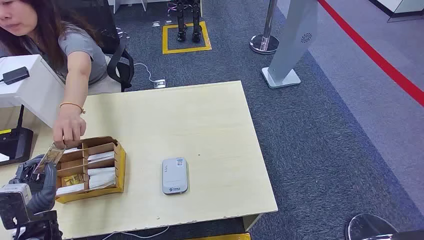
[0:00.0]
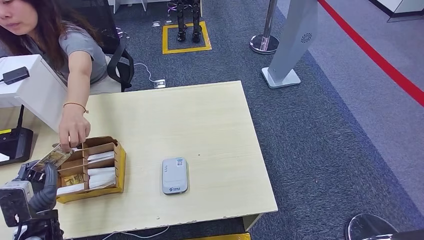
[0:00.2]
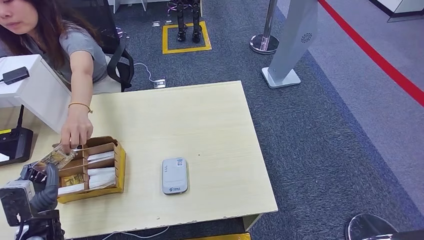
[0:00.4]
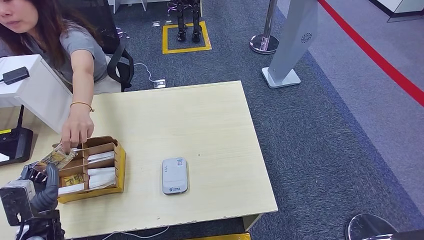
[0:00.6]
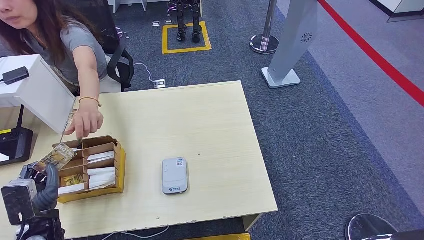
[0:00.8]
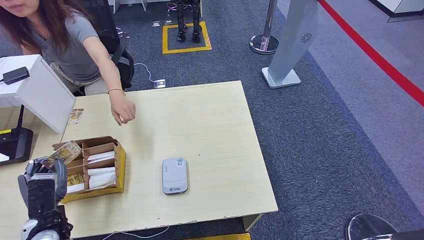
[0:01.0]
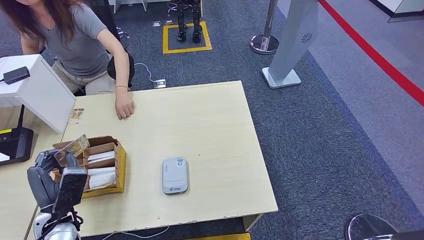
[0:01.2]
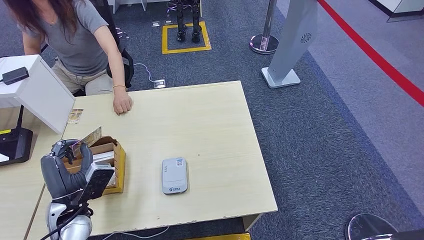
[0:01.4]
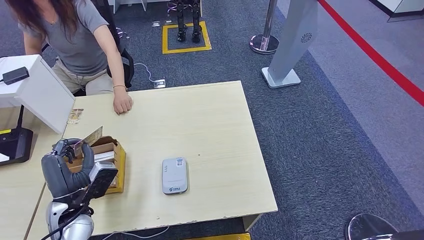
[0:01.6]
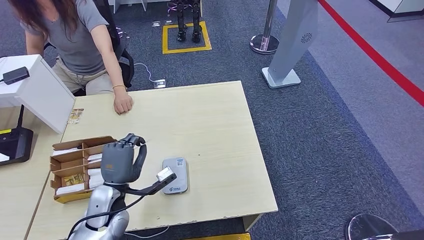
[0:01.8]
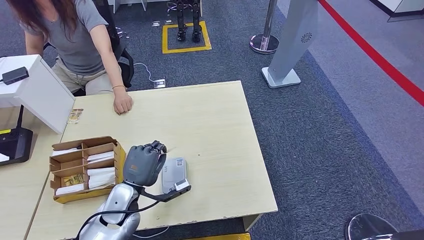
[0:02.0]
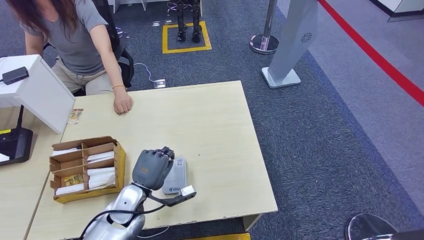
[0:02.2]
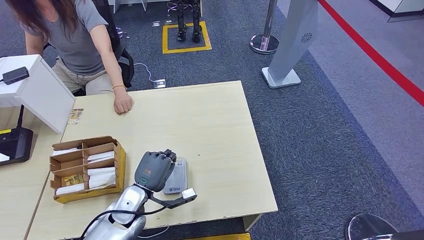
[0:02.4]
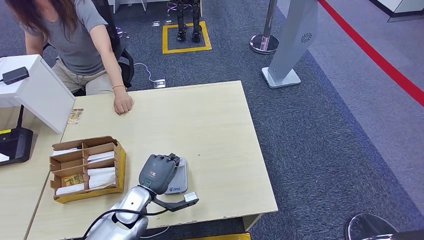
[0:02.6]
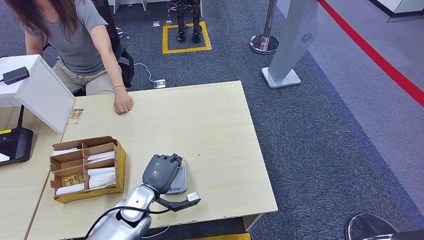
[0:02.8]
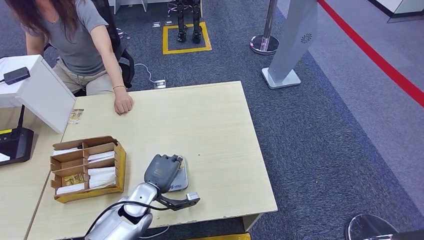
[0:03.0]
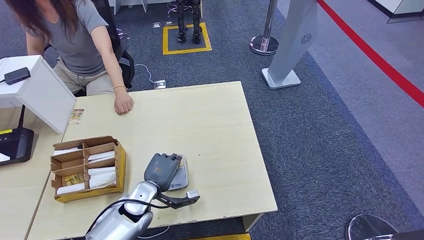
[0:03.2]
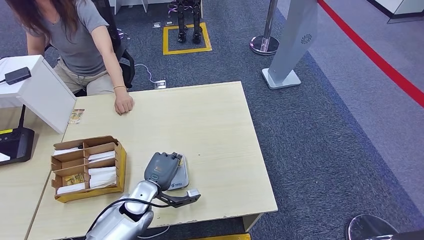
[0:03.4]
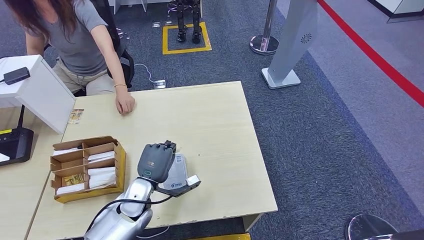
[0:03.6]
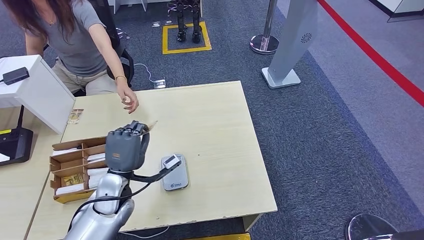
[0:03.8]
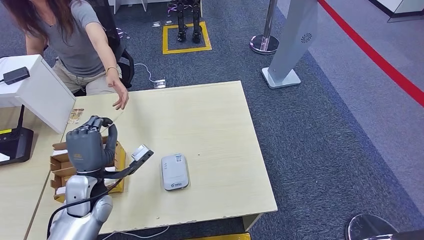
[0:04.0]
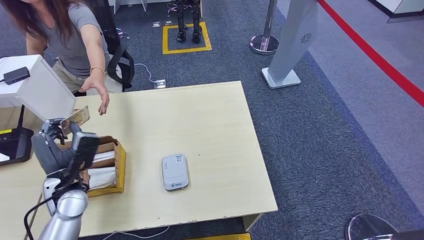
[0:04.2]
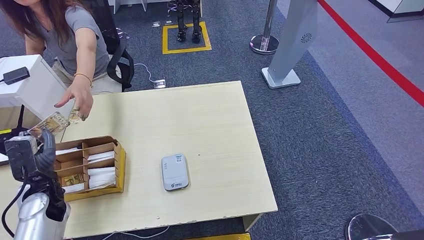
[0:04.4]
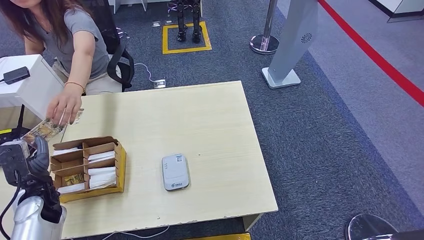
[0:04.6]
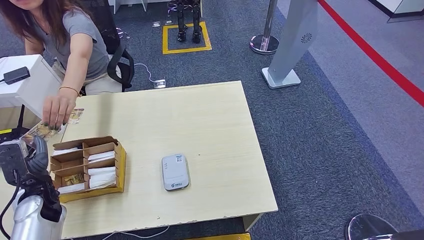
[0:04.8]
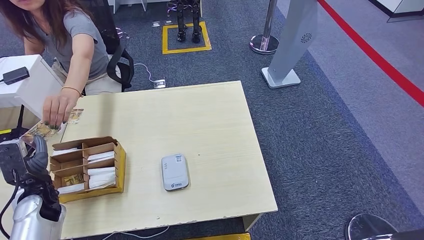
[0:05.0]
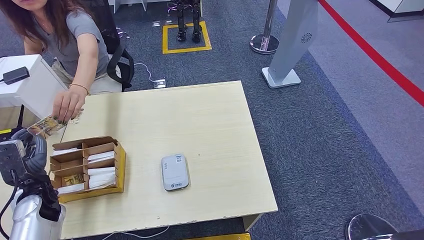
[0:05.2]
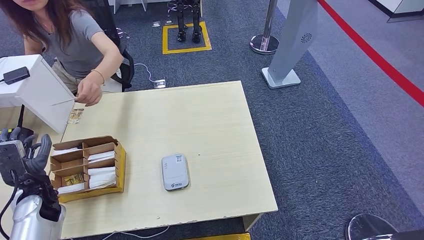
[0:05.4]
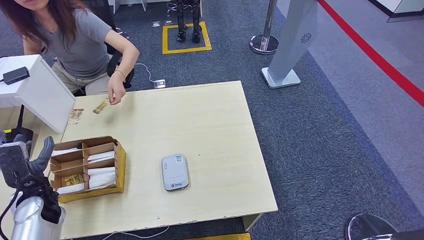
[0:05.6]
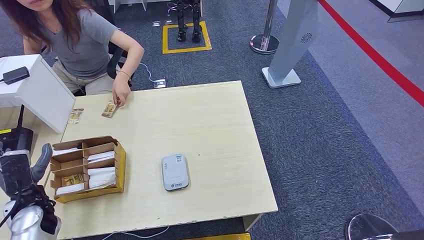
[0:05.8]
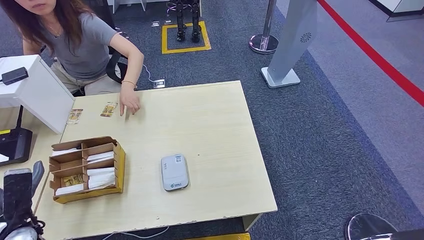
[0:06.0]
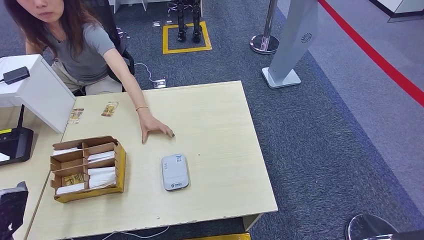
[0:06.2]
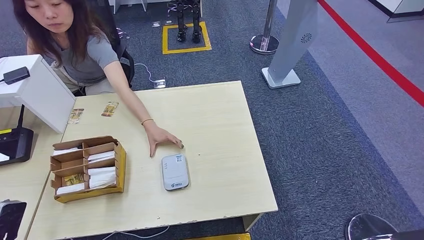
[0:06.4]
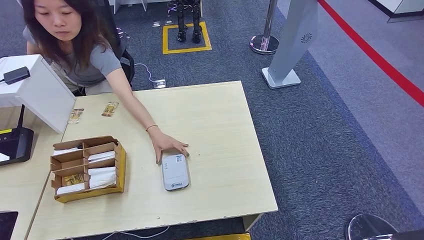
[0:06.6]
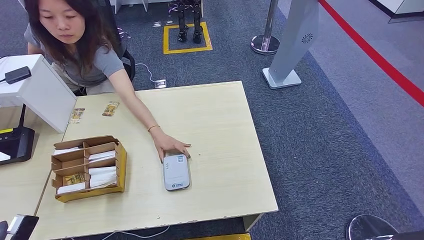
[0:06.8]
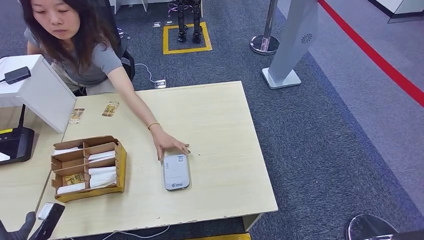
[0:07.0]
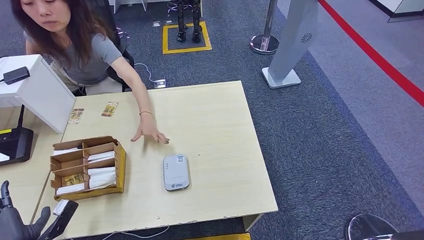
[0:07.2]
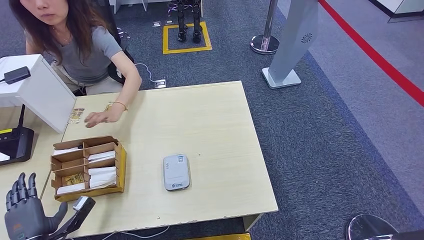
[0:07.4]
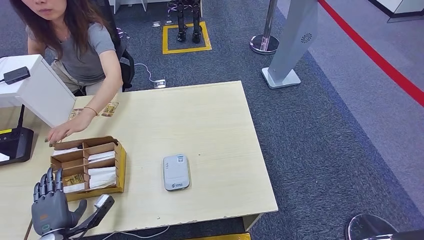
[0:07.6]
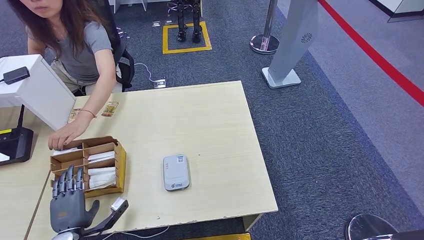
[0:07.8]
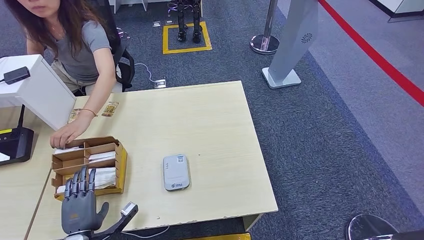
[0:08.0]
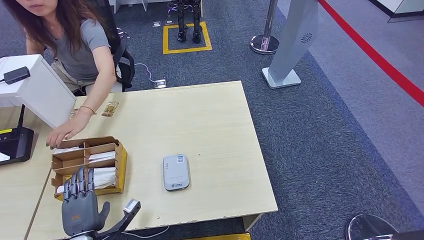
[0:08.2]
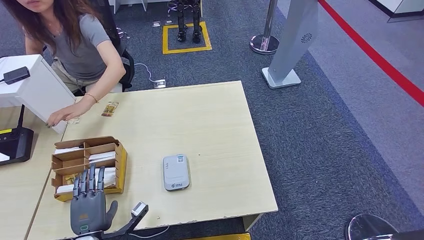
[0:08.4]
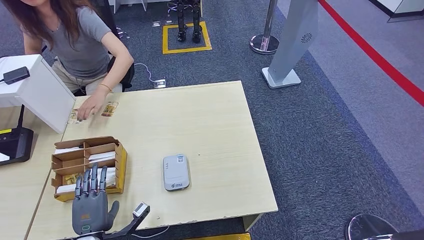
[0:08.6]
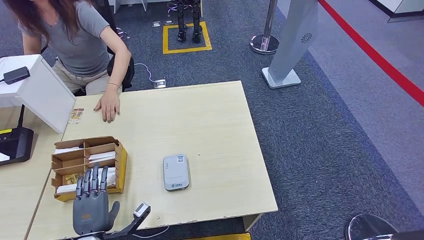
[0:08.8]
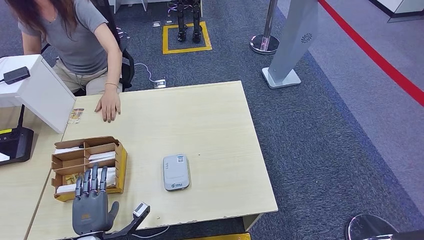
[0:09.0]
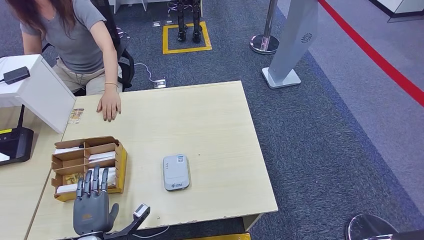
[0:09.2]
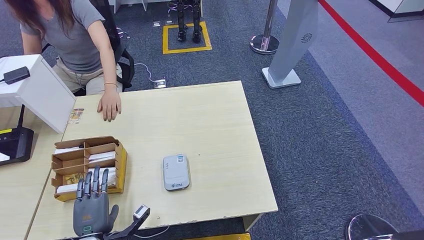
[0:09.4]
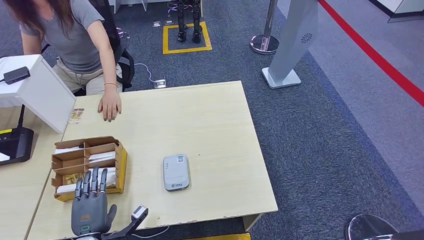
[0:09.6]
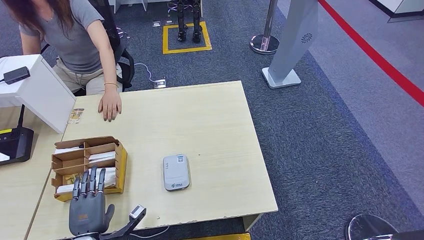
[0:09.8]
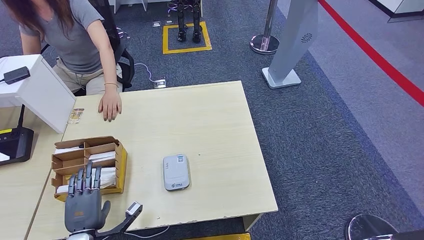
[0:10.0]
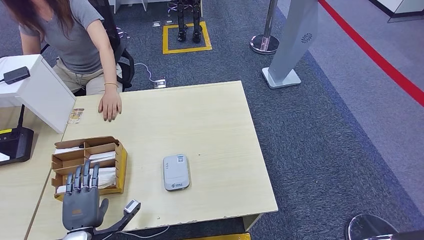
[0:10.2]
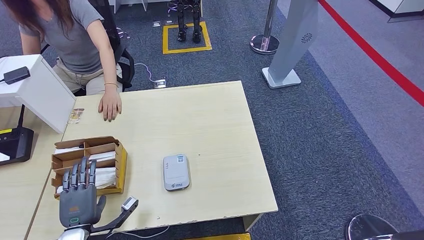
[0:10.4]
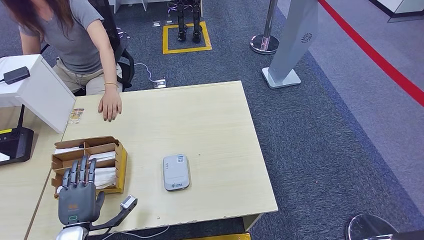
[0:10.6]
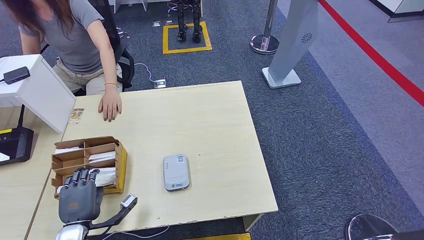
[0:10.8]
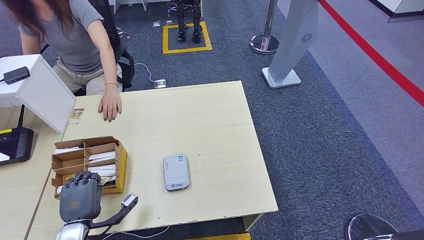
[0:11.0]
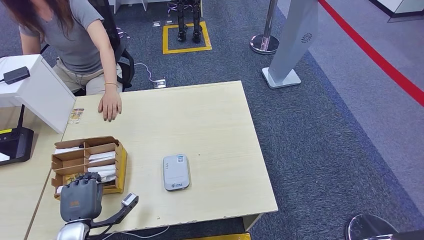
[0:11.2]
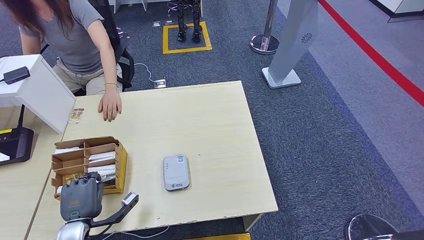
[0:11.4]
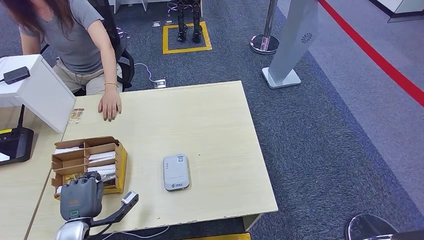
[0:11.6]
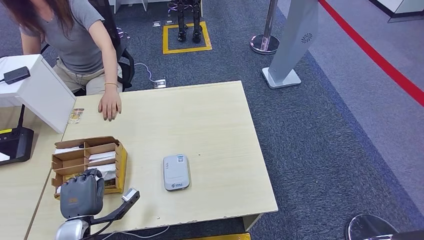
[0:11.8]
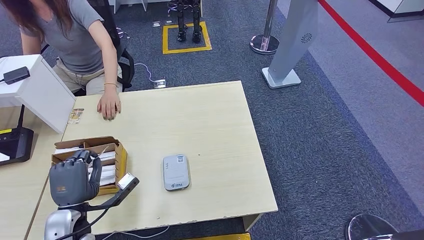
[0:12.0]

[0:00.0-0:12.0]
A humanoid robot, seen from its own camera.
Step, 0:00.0 to 0:01.0: Take the ID card from the person's hand.
Step, 0:01.4 to 0:03.8: Place the ID card on the card reader.
Step, 0:04.0 to 0:05.6: Hand the ID card to the person.
0:01.6 to 0:03.0: The left hand travels to the right and downward by roughly 15 cm.
0:03.0 to 0:04.4: The left hand shifts roughly 20 cm to the left.
0:04.4 to 0:06.0: The left hand heads backward, covering some 5 cm.
0:06.0 to 0:07.6: The left hand travels downward by some 5 cm.
0:07.6 to 0:09.0: The left hand is displaced to the right by some 10 cm.
0:09.0 to 0:10.4: There are only small adjustments of the hands.
0:10.4 to 0:12.0: The left hand heads upward, covering some 5 cm.

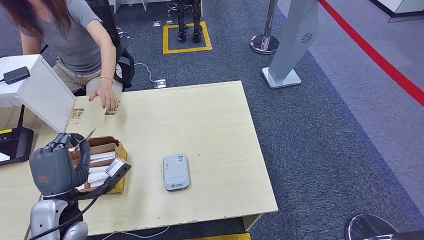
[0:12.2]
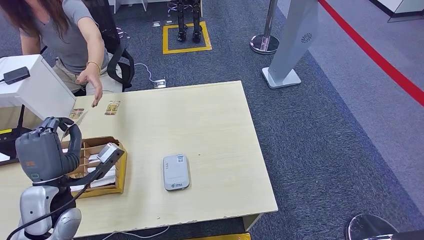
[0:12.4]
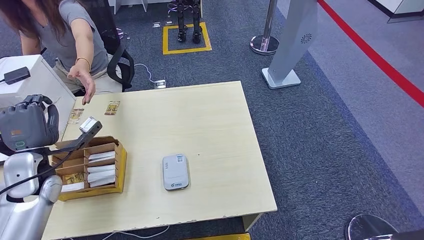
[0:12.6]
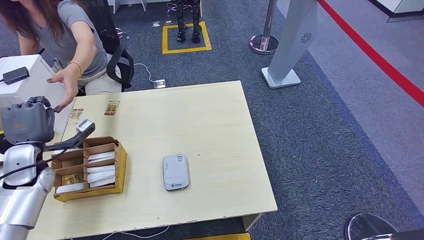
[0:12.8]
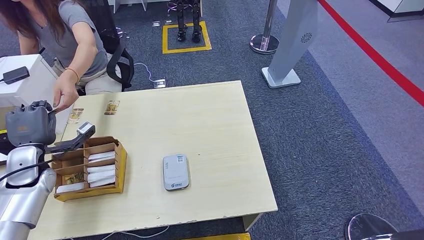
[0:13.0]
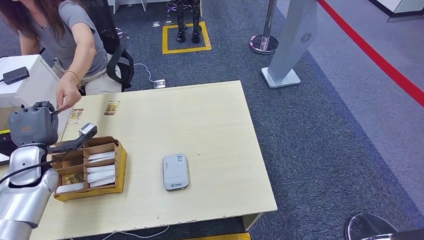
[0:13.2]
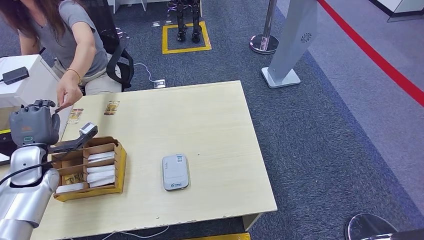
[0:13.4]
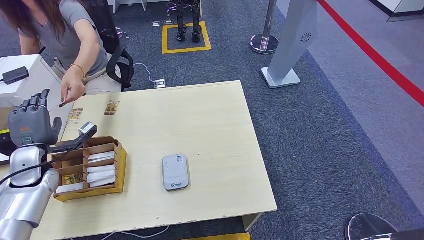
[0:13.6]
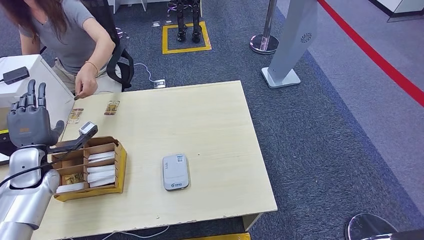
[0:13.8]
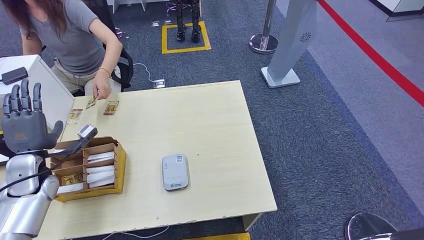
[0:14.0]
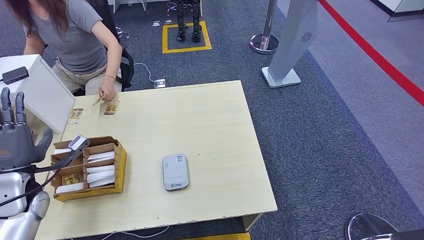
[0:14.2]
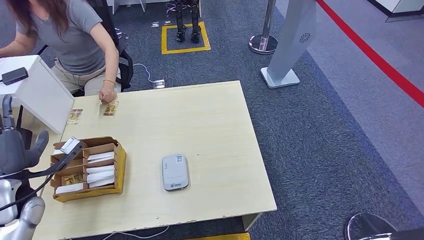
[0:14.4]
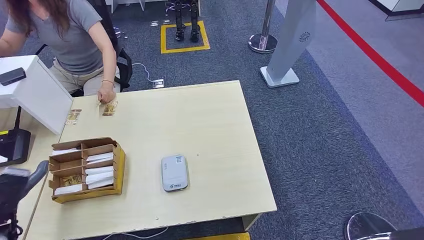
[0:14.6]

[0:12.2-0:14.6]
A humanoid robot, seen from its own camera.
Step, 0:12.4 to 0:14.4: Hand the room key to the person.
0:12.2 to 0:13.4: The left hand heads forward and to the left, covering roughly 20 cm.
0:13.4 to 0:14.6: The left hand moves backward, approximately 15 cm.

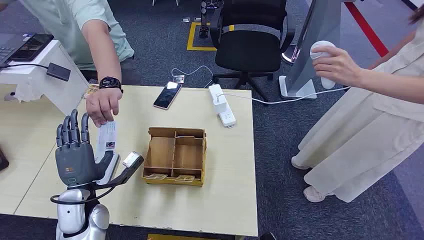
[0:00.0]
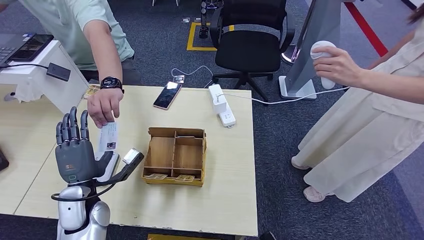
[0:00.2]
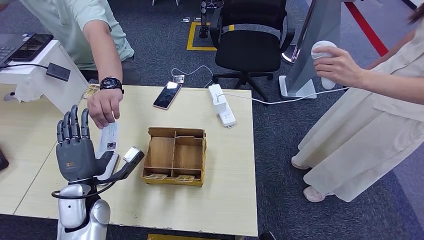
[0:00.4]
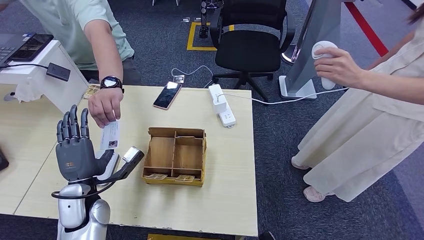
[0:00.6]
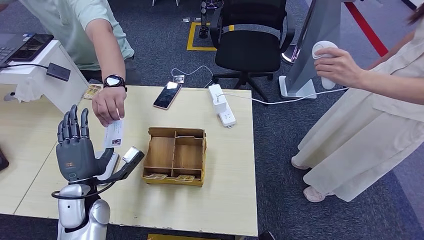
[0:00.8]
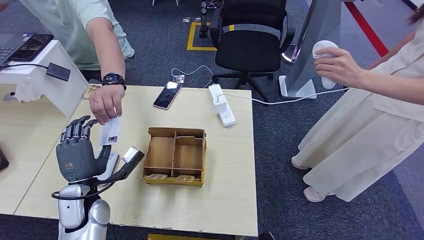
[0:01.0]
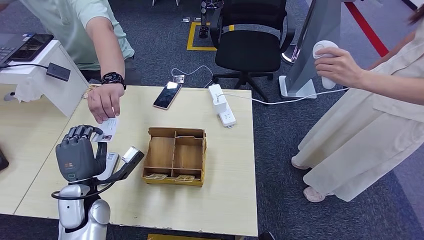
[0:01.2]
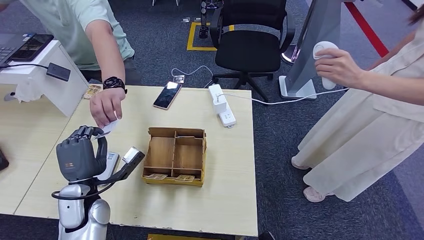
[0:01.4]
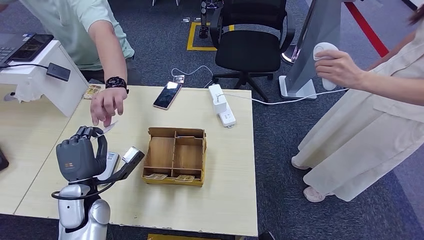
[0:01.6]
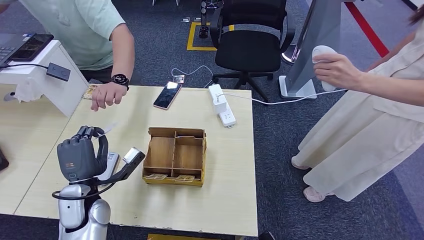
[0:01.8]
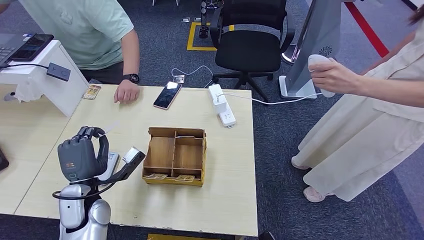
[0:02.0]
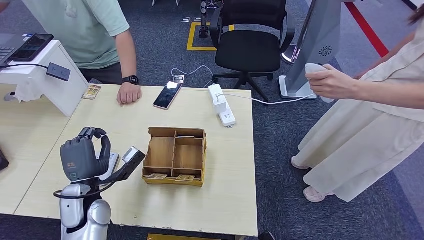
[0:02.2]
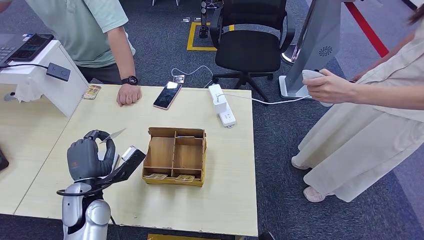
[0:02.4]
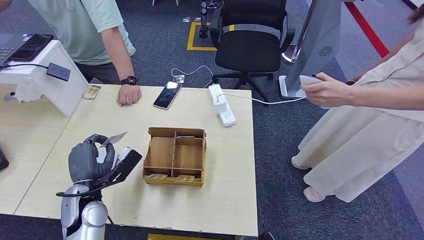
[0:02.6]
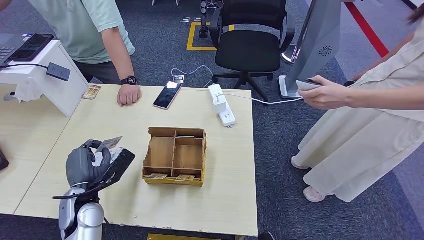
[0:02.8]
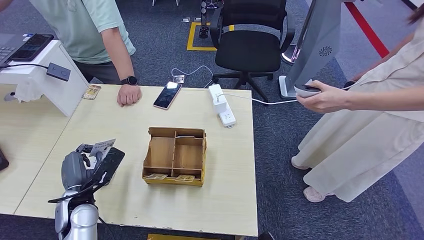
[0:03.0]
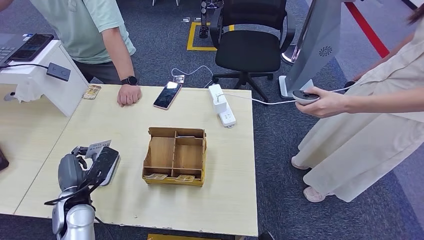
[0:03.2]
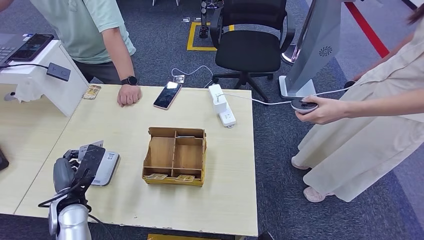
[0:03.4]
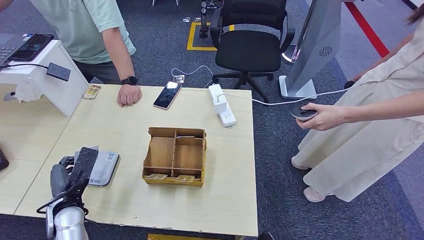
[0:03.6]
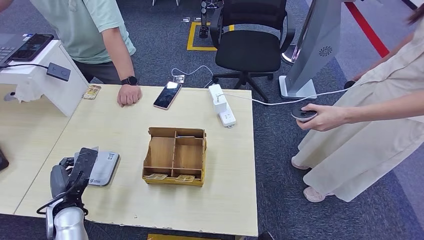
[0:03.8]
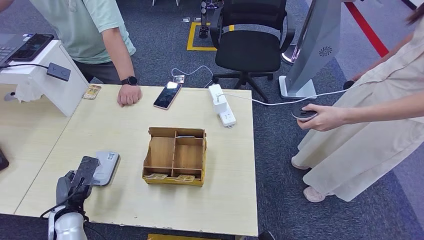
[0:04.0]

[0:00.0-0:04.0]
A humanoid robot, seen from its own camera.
Step, 0:00.0 to 0:01.6: Take the ID card from the person's hand.
0:02.6 to 0:04.0: The left hand shifts about 5 cm to the left.
